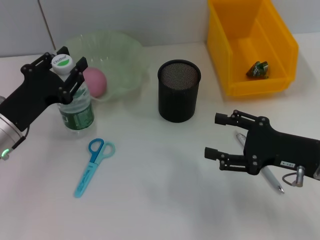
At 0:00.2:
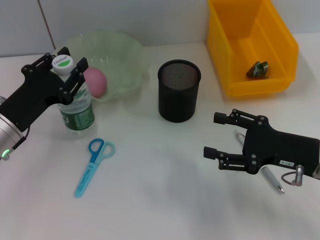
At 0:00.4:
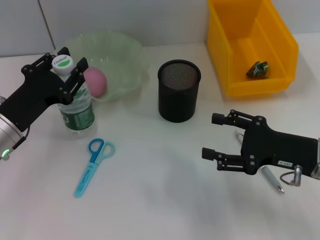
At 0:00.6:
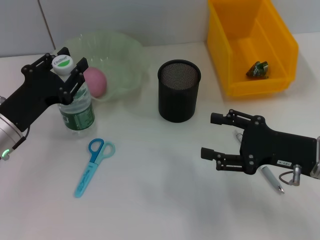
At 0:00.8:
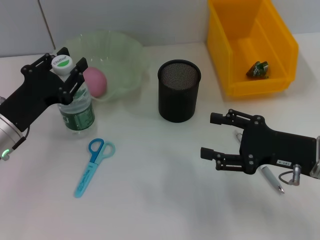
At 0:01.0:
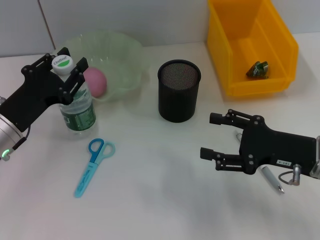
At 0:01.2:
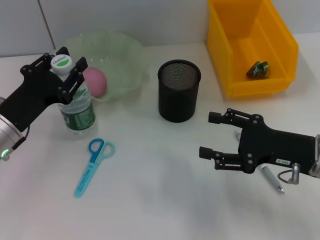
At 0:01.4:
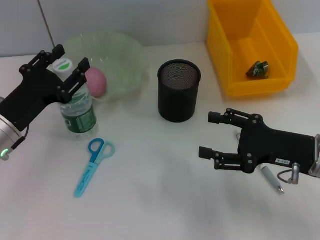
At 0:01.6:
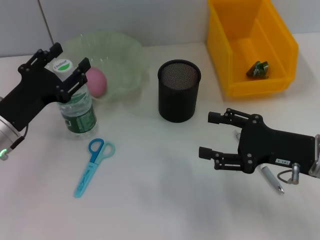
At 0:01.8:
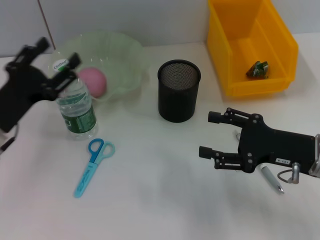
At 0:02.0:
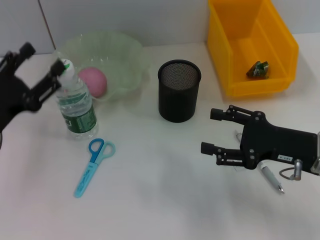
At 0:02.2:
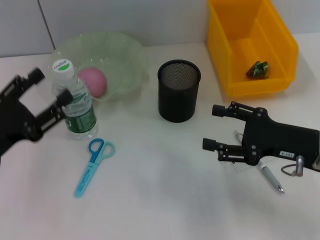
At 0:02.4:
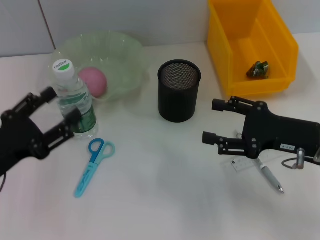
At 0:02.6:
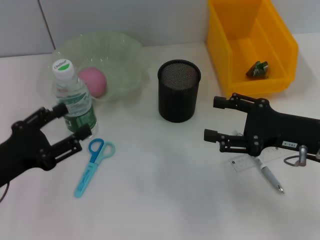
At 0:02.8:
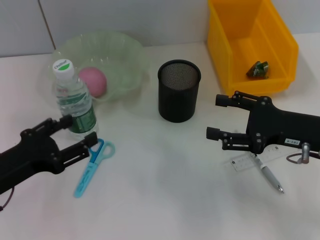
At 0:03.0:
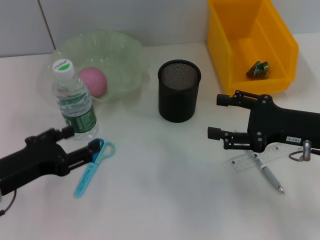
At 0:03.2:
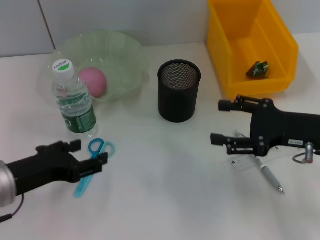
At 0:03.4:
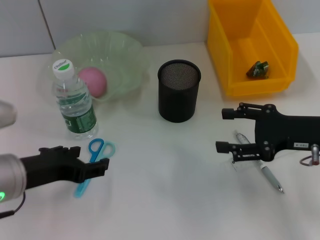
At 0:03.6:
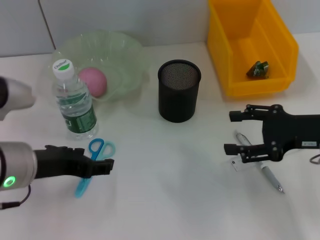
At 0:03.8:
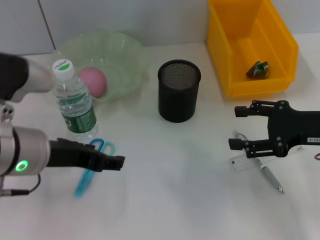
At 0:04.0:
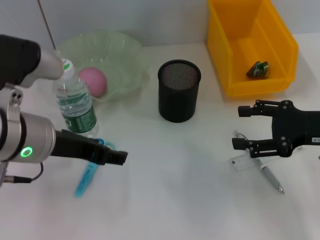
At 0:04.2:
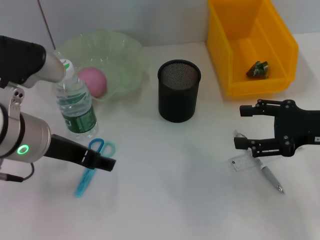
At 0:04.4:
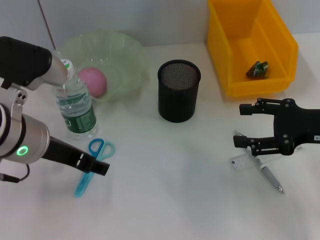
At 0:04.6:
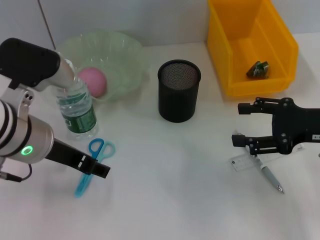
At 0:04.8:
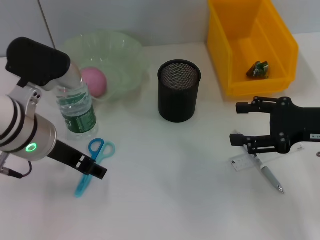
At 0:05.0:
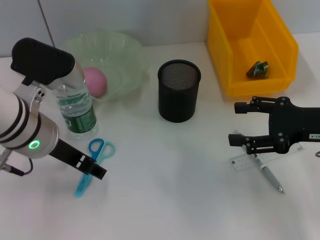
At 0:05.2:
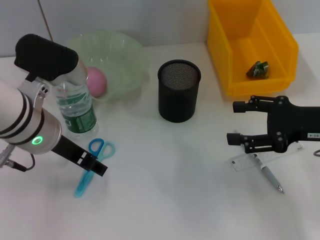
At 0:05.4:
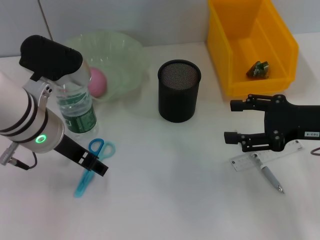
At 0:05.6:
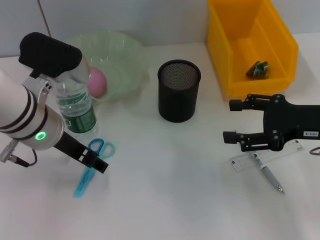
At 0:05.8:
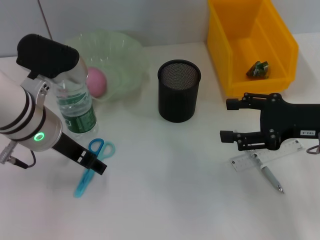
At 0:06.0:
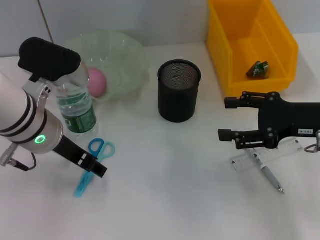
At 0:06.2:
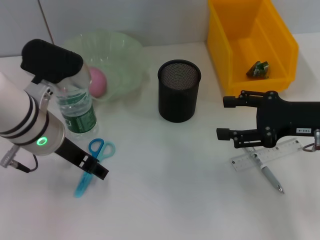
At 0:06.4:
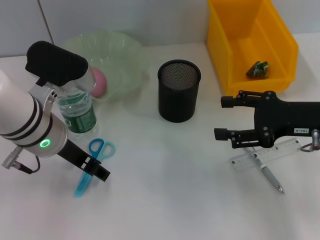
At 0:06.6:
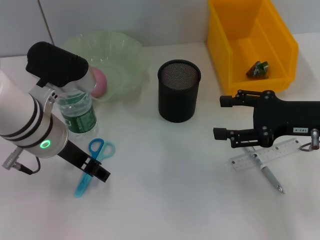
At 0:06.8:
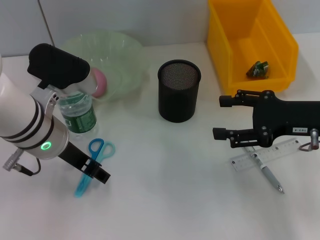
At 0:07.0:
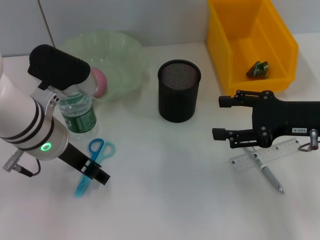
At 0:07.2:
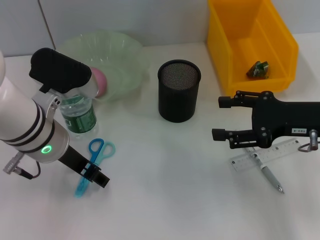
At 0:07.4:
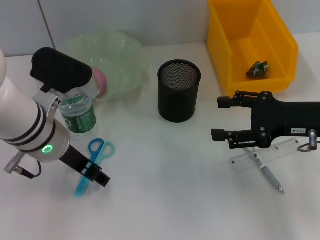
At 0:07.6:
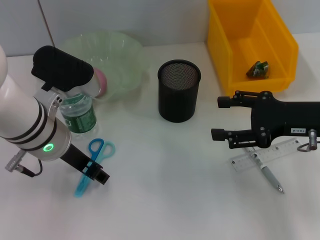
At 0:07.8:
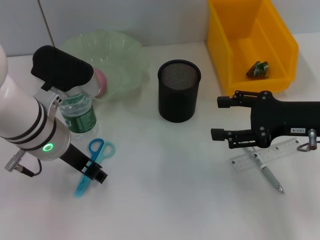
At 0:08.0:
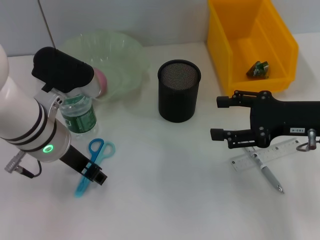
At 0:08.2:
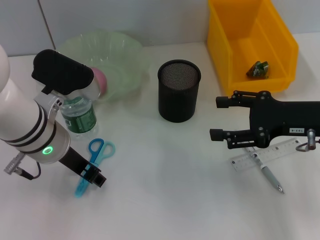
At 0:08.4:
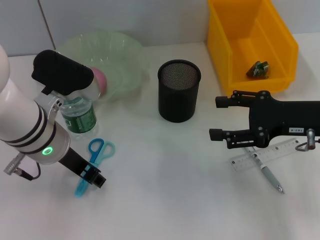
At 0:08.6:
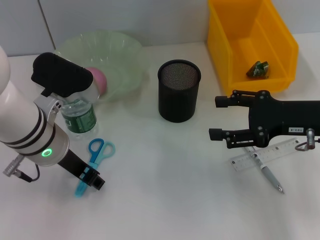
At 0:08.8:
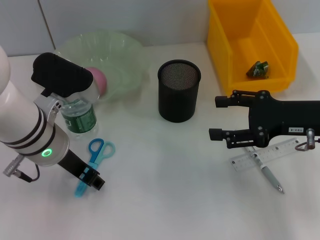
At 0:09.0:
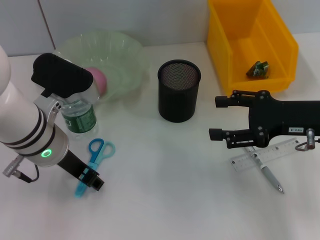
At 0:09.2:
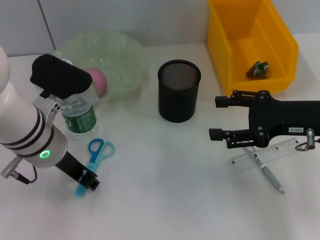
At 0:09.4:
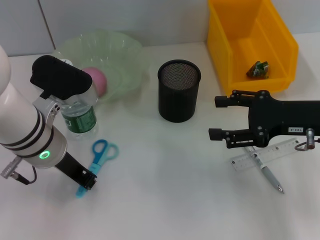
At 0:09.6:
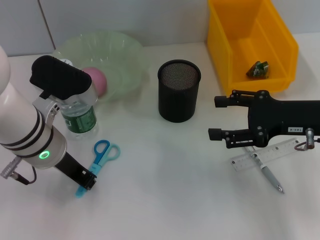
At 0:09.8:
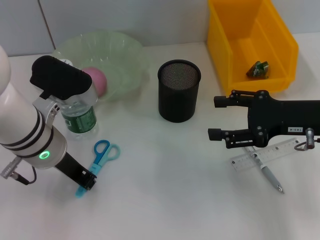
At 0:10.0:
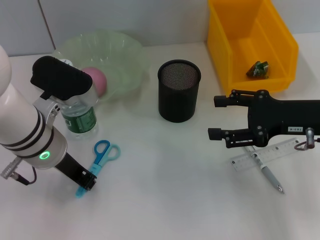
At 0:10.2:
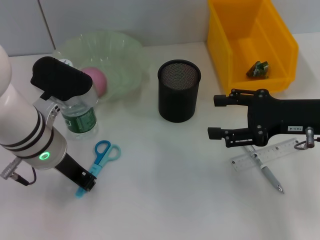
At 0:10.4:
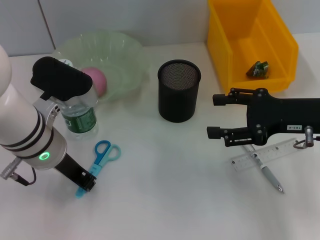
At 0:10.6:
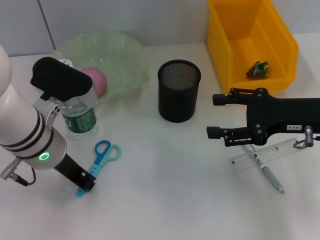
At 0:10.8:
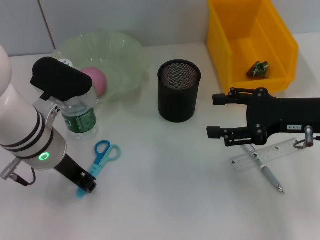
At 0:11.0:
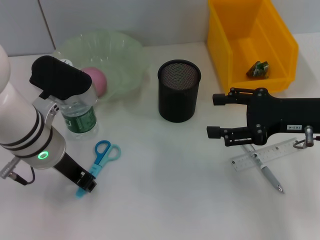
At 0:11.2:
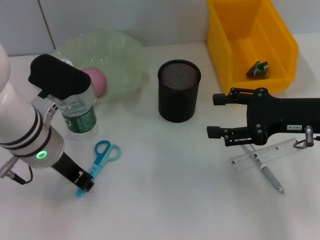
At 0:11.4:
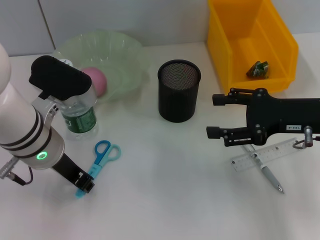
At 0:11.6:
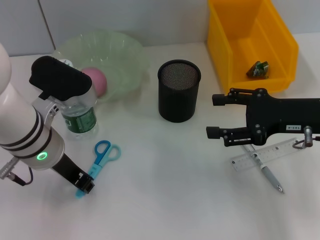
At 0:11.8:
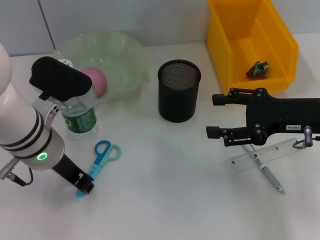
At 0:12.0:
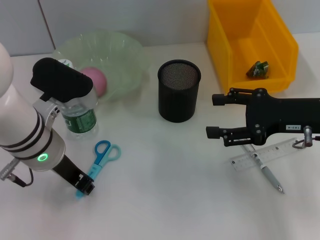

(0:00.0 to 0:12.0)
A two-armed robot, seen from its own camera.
0:00.0 - 0:01.6: Both grippers stay put.
0:01.6 - 0:03.0: The left gripper shifts roughly 10 cm backward.
0:03.0 - 0:04.4: The left gripper moves to the right, upward and forward, approximately 15 cm.
0:04.4 - 0:06.0: The grippers make only small movements.
0:06.0 - 0:07.6: Neither gripper changes place.
0:07.6 - 0:09.0: Both grippers stay put.
0:09.0 - 0:10.4: The left gripper closes.
0:10.4 - 0:12.0: The two grippers keep their place.

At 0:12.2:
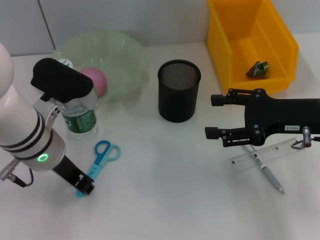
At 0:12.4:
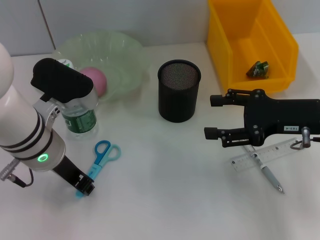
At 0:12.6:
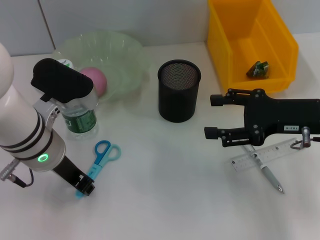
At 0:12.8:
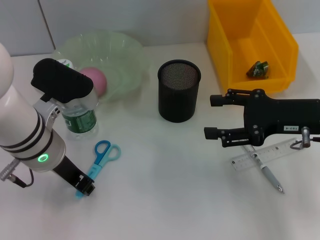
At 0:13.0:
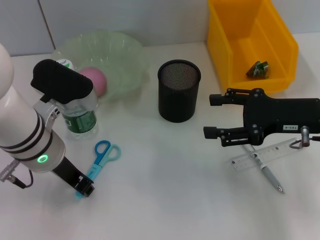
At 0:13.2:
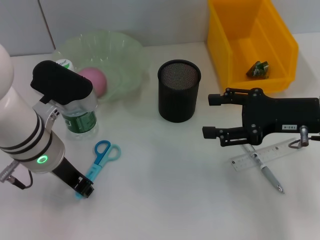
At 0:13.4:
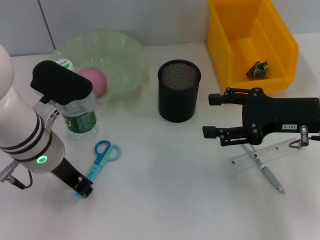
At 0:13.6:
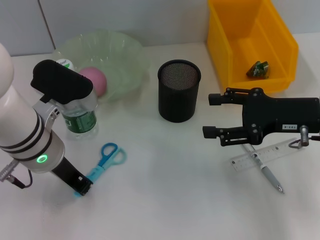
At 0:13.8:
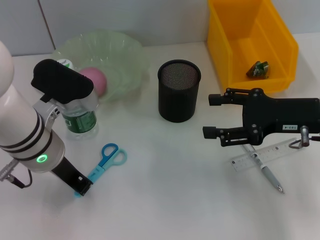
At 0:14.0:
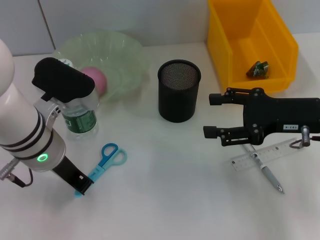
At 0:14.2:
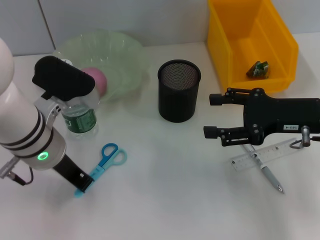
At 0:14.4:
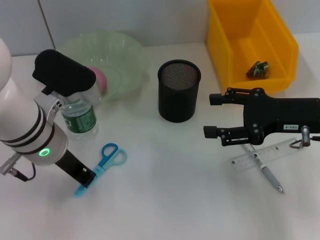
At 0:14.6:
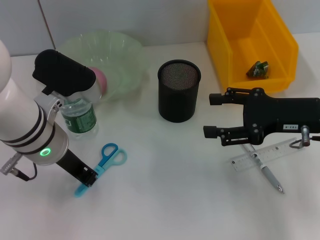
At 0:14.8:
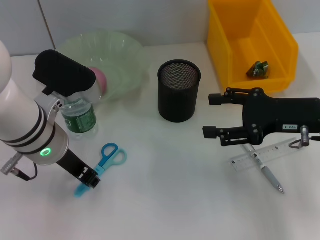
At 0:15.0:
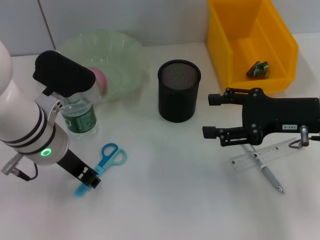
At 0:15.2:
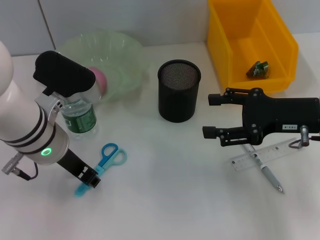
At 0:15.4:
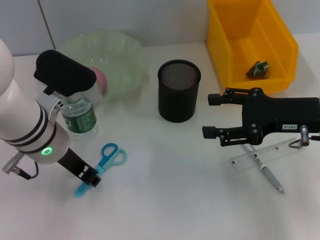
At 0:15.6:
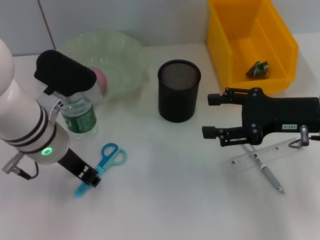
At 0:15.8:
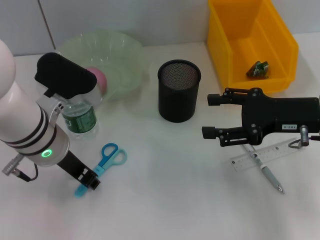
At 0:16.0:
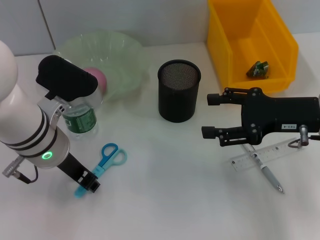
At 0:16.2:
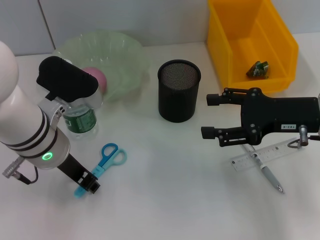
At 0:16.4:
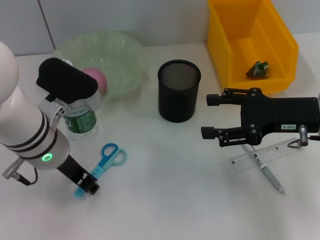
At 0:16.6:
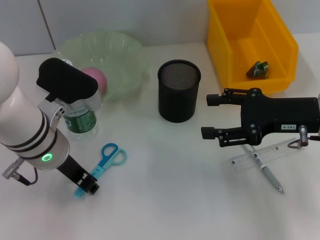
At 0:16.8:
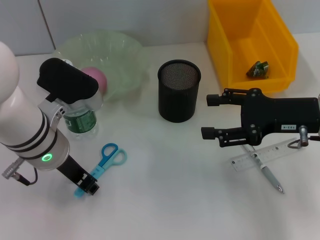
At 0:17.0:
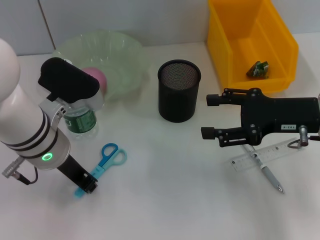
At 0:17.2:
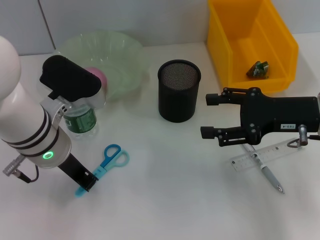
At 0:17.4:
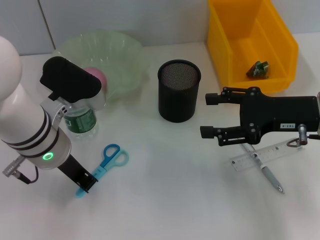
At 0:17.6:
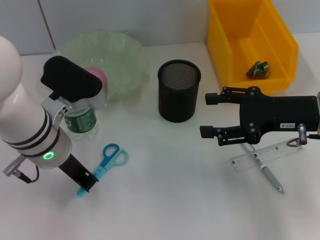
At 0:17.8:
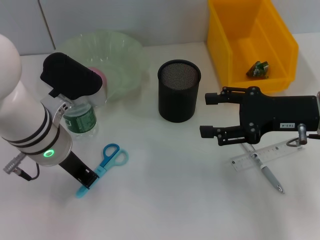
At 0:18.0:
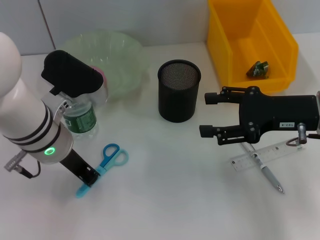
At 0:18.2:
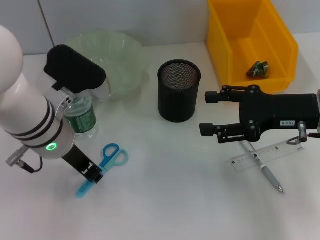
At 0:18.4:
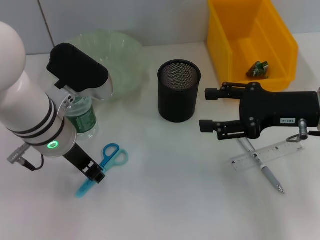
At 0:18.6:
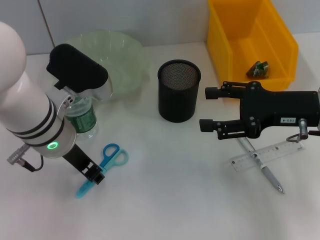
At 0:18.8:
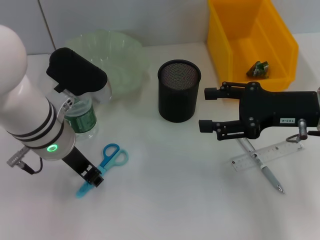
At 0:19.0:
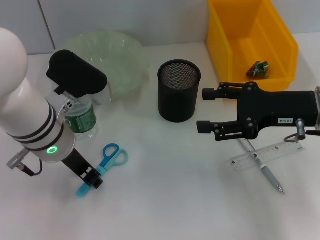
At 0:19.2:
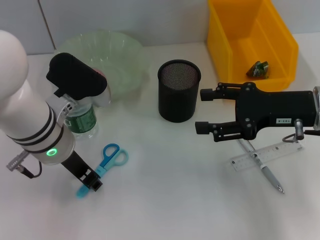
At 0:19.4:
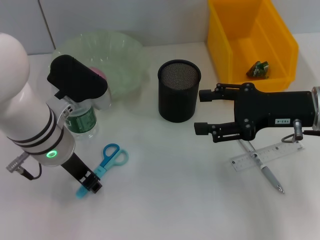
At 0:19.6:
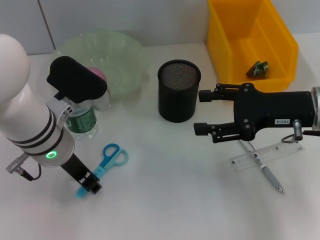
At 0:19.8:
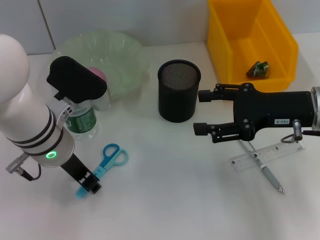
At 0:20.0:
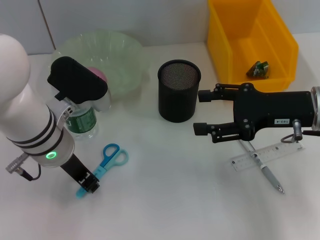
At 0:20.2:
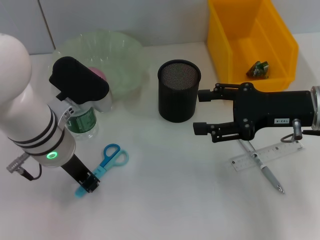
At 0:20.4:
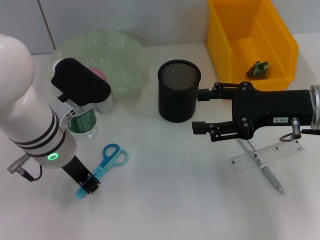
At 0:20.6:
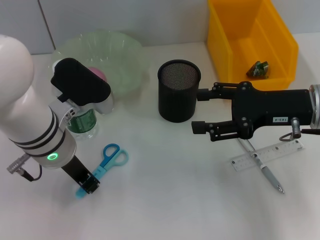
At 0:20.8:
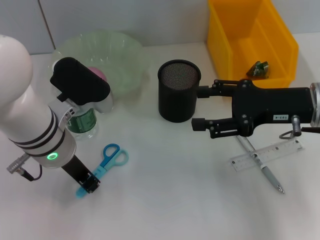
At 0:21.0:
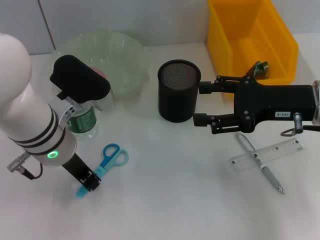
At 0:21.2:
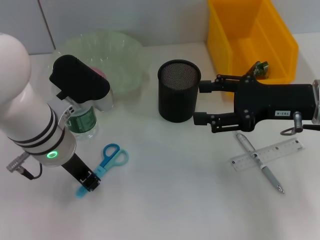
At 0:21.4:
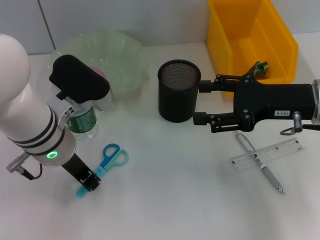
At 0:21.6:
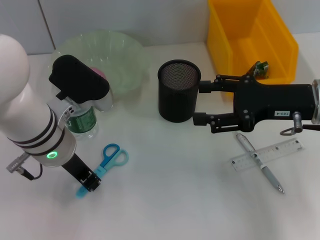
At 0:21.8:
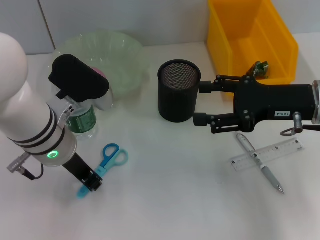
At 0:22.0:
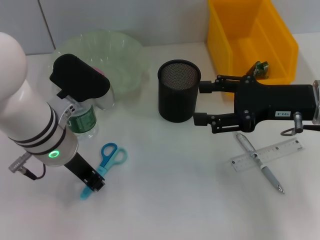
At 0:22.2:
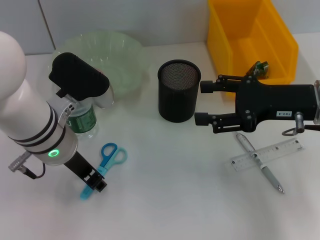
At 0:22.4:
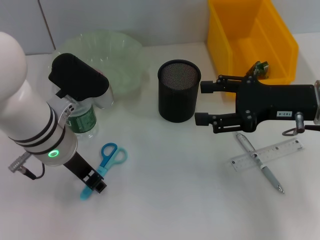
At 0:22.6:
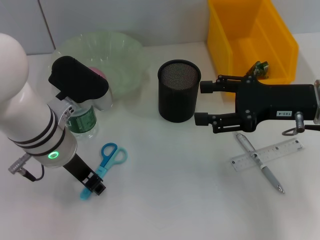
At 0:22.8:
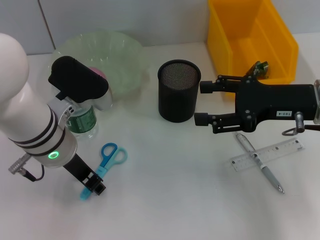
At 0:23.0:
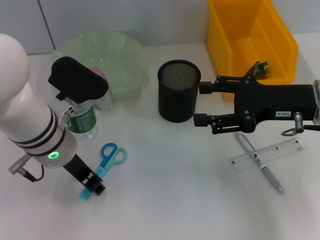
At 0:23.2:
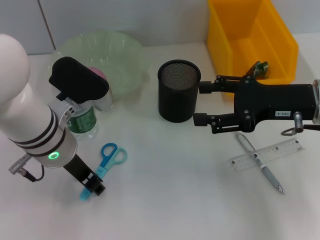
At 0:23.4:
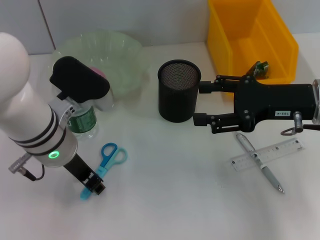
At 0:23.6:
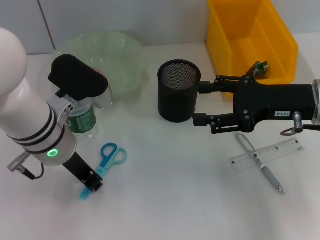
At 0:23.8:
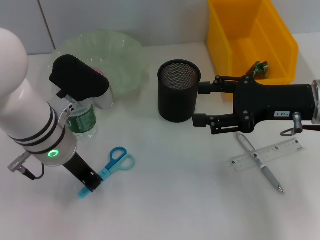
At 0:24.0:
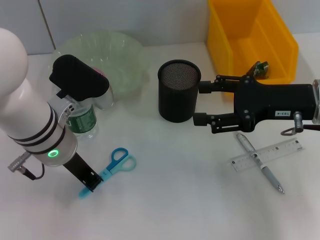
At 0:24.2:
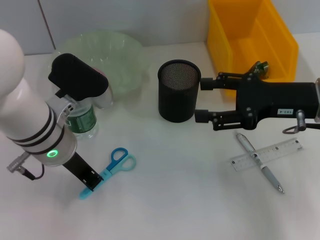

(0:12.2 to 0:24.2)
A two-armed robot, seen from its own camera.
0:12.2 - 0:16.6: The two grippers keep their place.
0:16.6 - 0:18.2: The grippers make only small movements.
0:18.2 - 0:22.6: Neither gripper changes place.
0:22.6 - 0:24.2: The left gripper closes its fingers.
